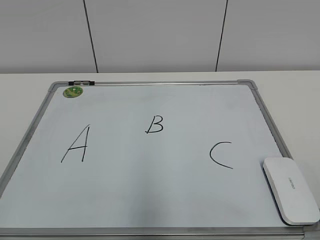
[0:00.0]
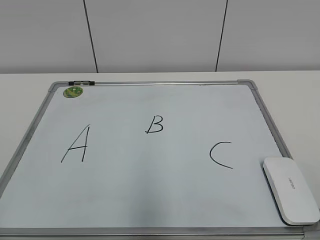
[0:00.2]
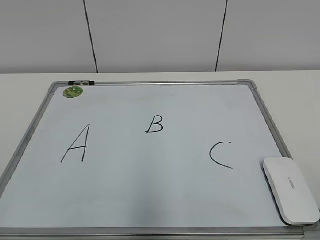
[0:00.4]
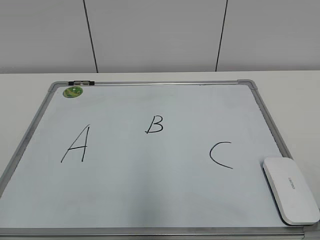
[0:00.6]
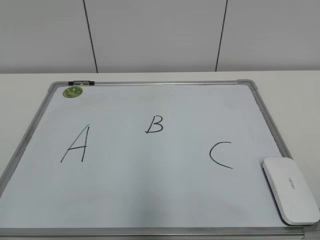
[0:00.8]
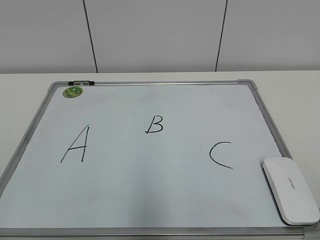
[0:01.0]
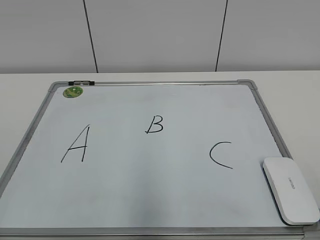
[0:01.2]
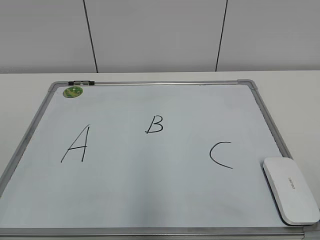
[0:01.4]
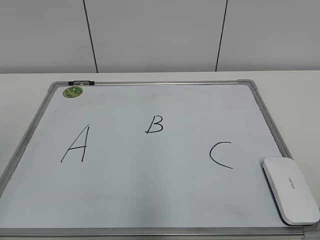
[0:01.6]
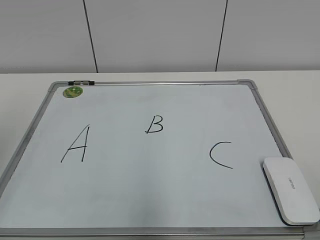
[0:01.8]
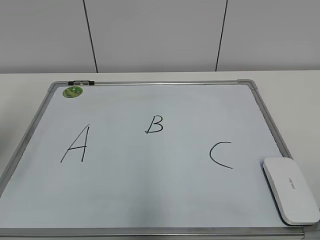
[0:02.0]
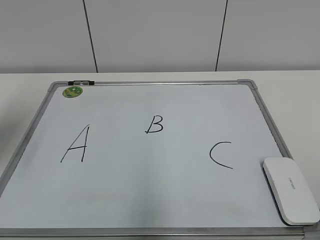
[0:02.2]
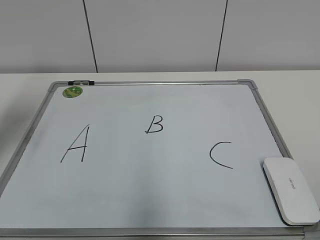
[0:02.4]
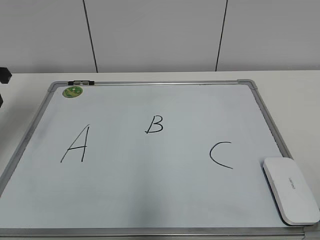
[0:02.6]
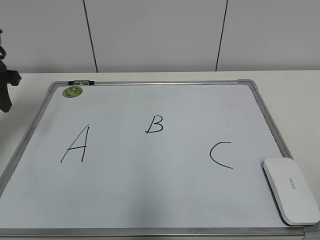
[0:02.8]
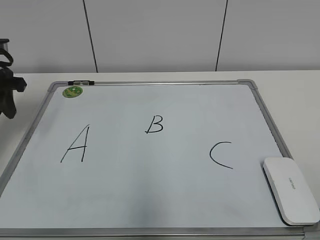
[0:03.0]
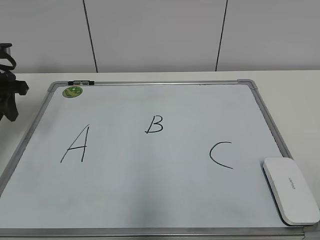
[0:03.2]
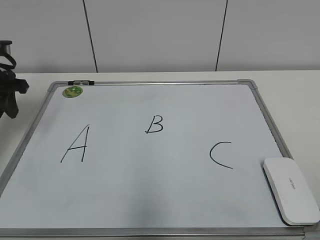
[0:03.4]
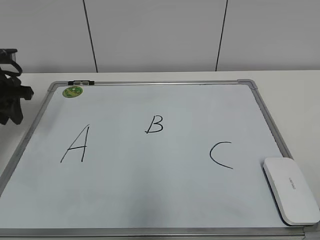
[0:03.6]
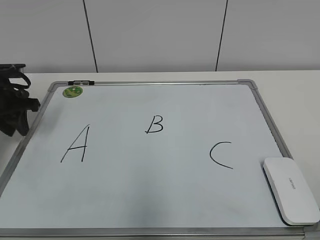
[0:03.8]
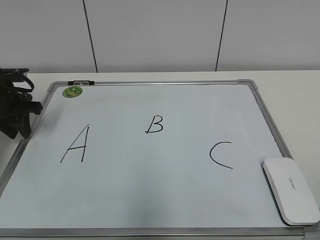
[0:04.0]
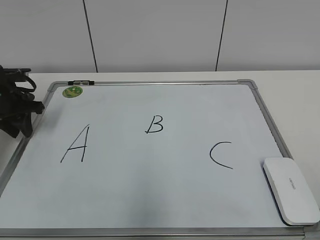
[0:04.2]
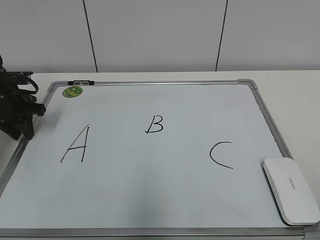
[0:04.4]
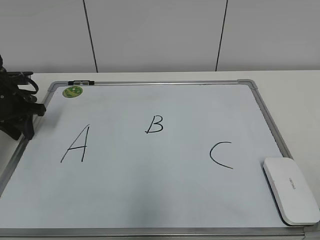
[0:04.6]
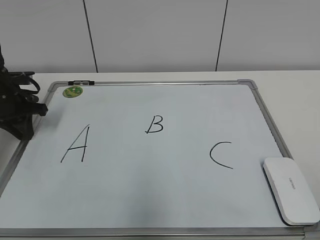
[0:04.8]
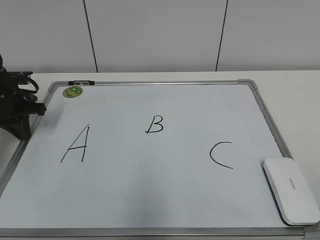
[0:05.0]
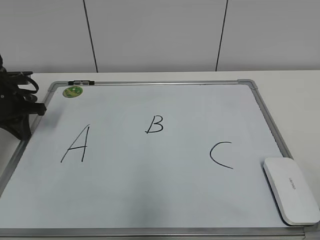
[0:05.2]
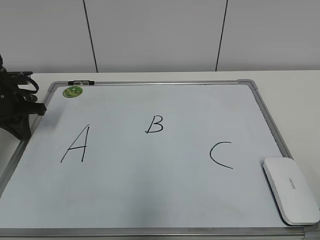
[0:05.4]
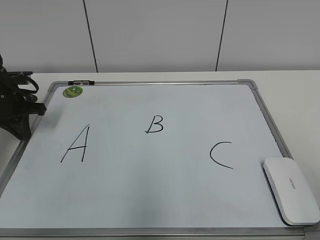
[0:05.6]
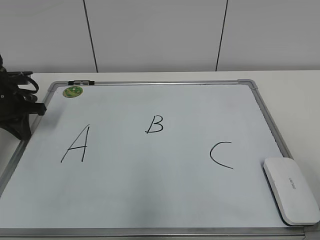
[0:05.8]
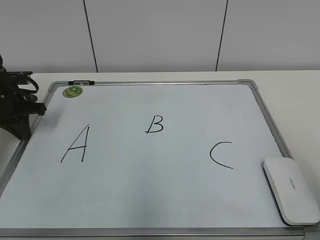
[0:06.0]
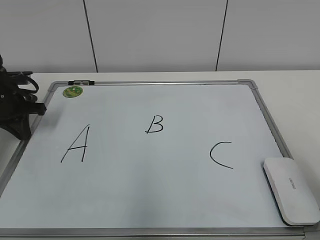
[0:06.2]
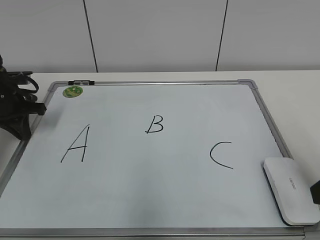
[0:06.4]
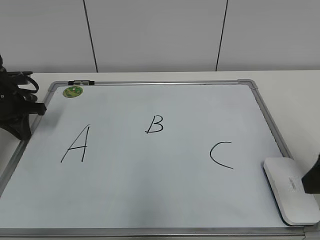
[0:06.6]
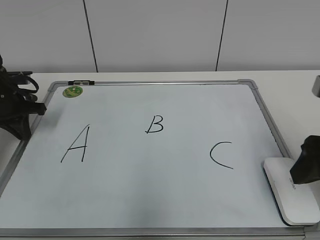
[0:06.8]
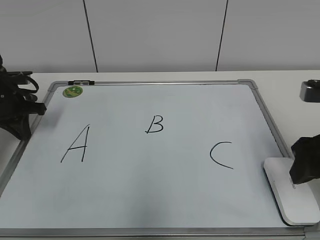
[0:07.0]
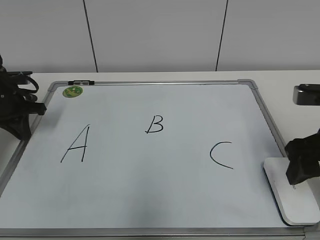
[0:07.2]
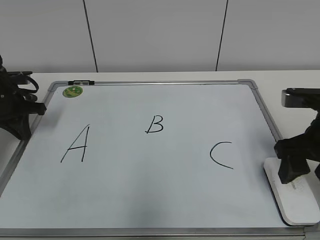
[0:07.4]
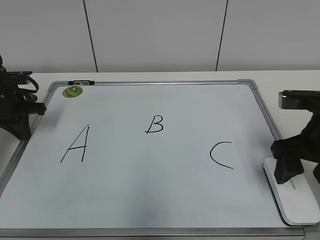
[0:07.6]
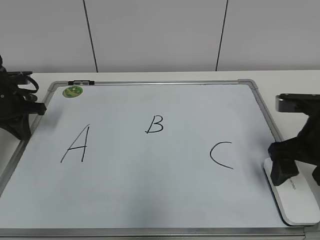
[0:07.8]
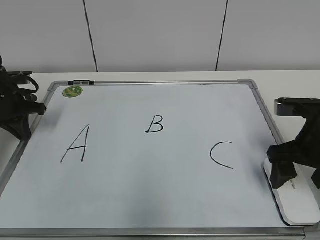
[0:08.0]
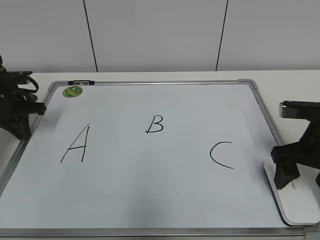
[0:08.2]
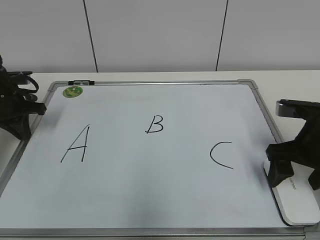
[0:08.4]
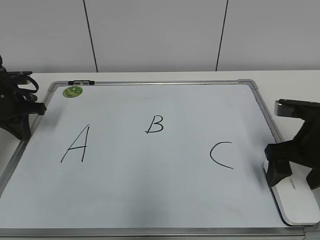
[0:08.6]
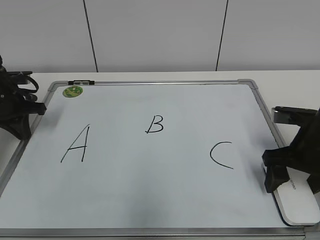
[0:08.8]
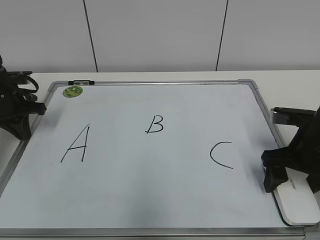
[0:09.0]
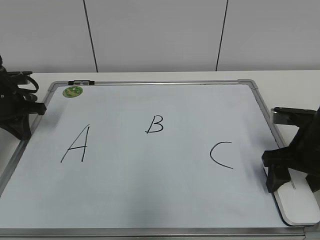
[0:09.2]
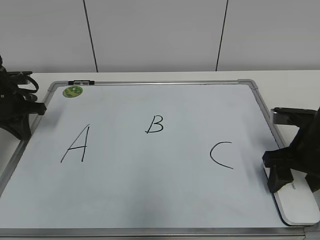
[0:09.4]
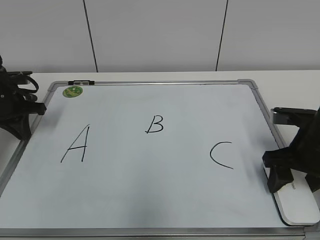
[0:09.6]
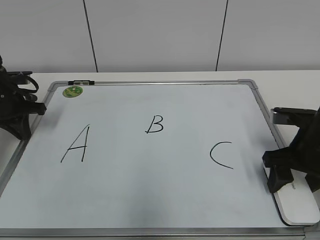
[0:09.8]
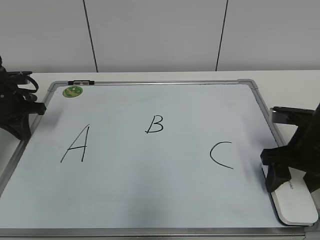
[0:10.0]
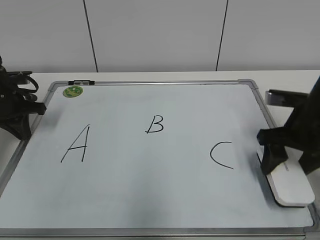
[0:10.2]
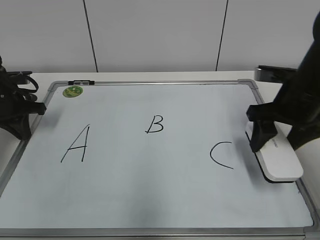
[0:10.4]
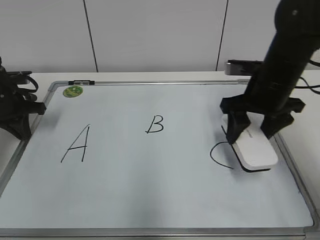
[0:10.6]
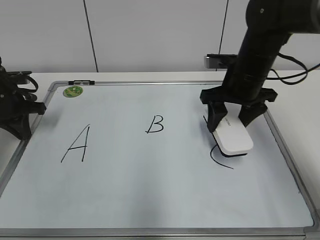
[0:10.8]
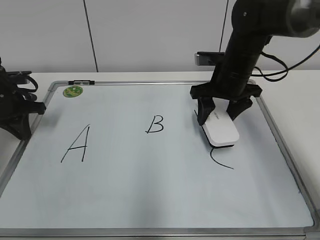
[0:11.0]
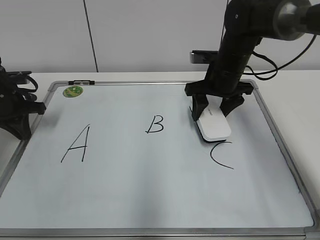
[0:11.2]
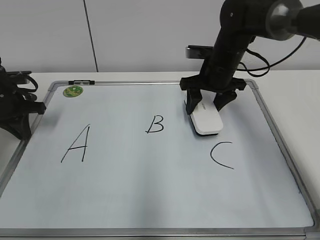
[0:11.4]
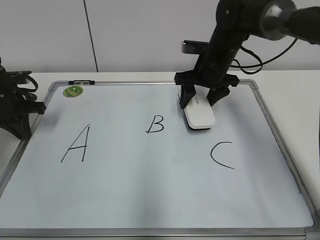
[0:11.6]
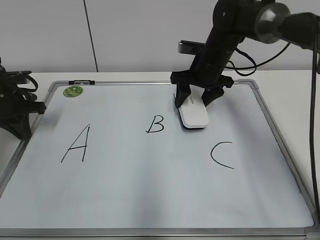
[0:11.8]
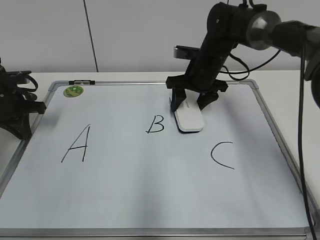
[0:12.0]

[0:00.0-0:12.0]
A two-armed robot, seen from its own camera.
Task of the whole recording: pick up the eraser on the blackboard and erase the letter "B".
Step, 0:00.0 to 0:04.8: Hold the drawing board steady with your left hand.
Step, 0:05.2 to 0:09.8: Grab the eraser with your right hand.
0:01.6 to 0:03.0: The left gripper travels forward by roughly 30 cm.
0:03.0 to 0:04.4: The left gripper heads downward, covering roughly 10 cm.
0:04.4 to 0:06.0: The right gripper heads forward, covering roughly 10 cm.
0:06.0 to 0:07.6: The right gripper is displaced forward and downward by some 20 cm.
0:07.6 to 0:09.0: The right gripper shifts by approximately 5 cm, and opens.
0:09.0 to 0:10.4: The right gripper moves upward, approximately 5 cm, and closes its fingers.
0:10.4 to 0:12.0: The right gripper heads forward and to the left, covering some 20 cm.

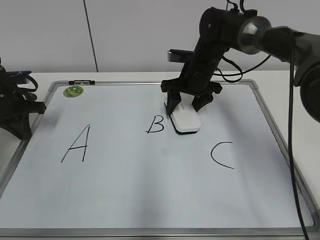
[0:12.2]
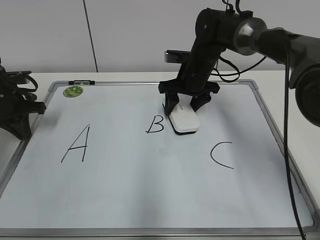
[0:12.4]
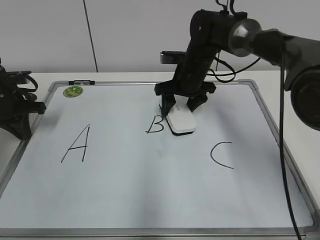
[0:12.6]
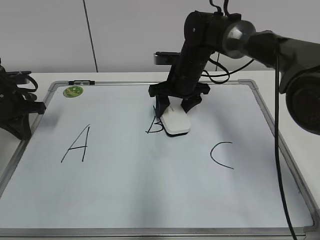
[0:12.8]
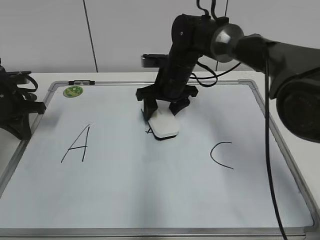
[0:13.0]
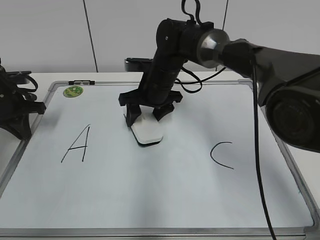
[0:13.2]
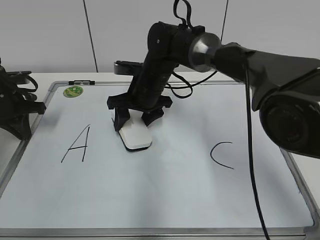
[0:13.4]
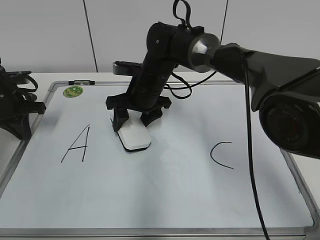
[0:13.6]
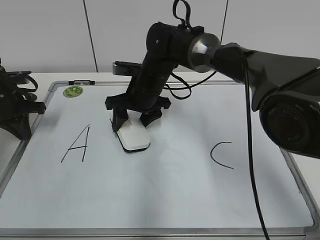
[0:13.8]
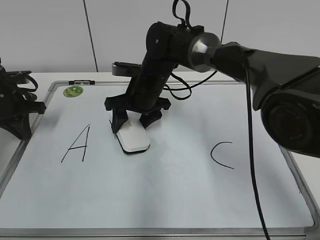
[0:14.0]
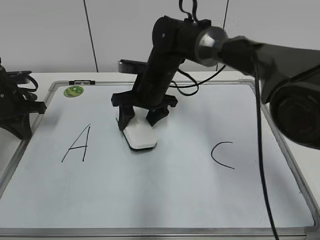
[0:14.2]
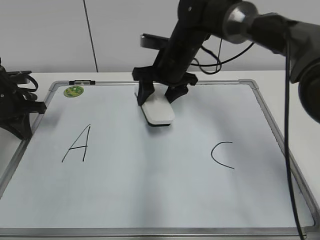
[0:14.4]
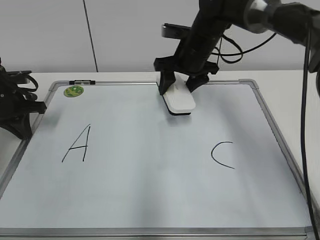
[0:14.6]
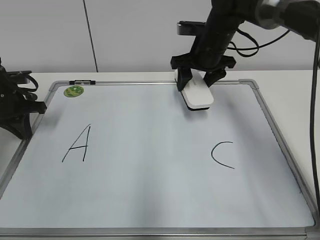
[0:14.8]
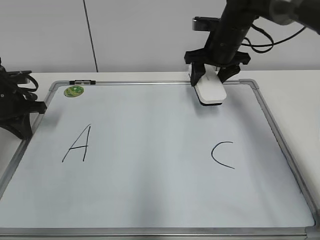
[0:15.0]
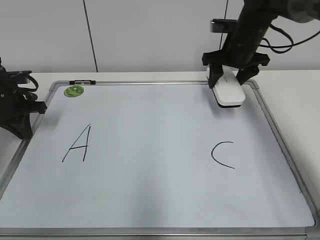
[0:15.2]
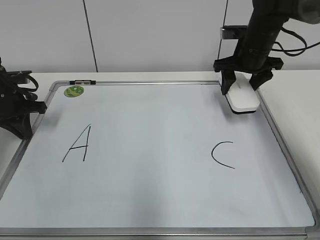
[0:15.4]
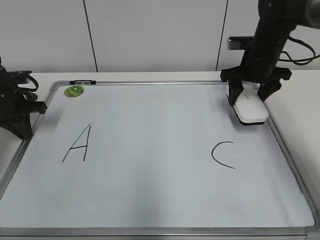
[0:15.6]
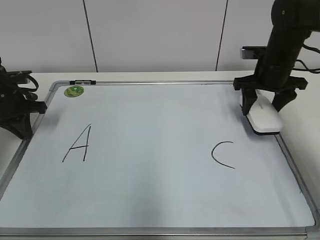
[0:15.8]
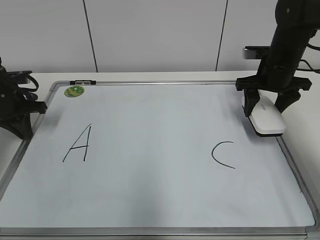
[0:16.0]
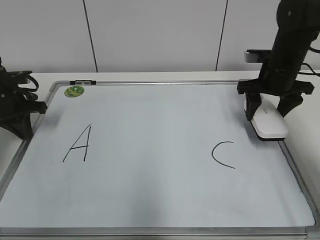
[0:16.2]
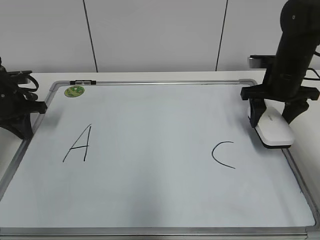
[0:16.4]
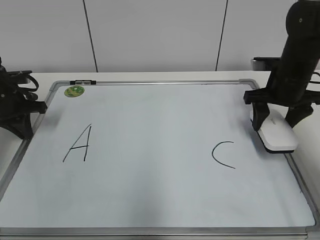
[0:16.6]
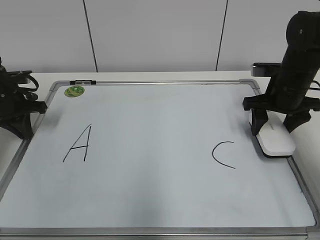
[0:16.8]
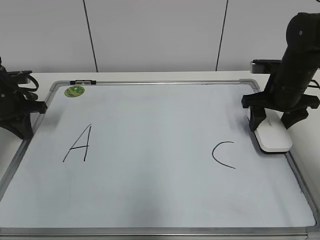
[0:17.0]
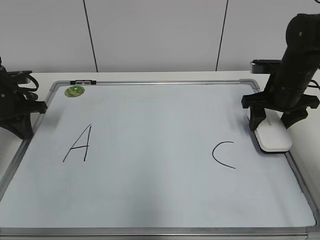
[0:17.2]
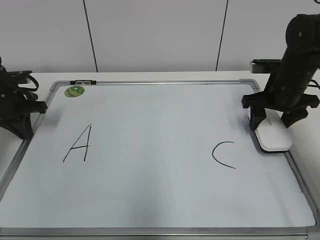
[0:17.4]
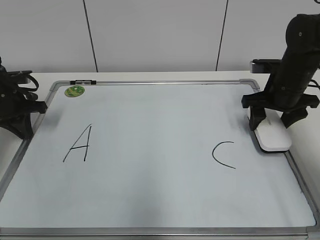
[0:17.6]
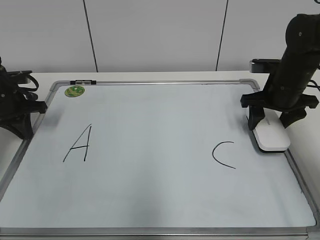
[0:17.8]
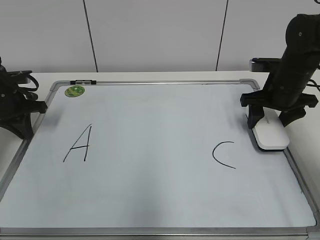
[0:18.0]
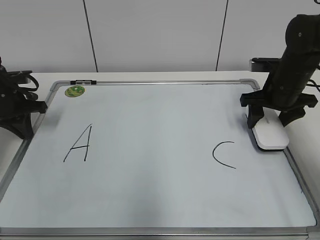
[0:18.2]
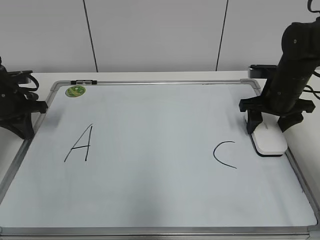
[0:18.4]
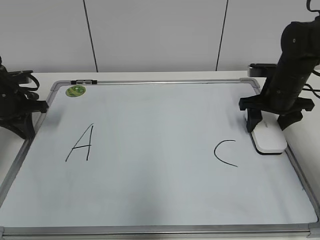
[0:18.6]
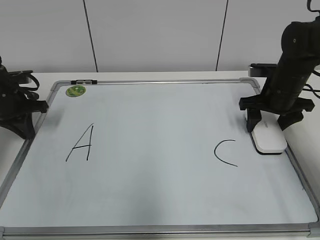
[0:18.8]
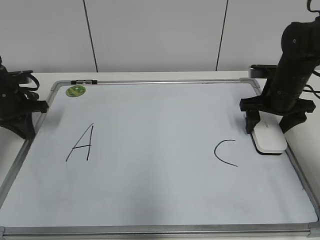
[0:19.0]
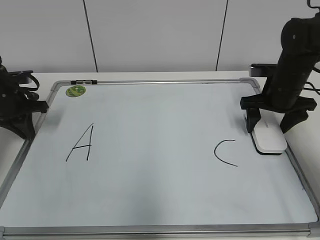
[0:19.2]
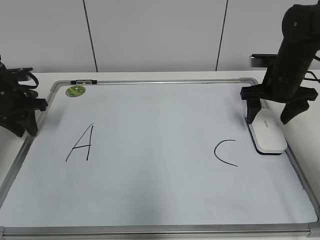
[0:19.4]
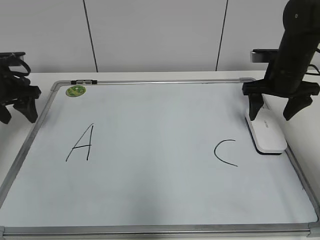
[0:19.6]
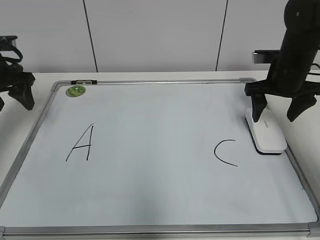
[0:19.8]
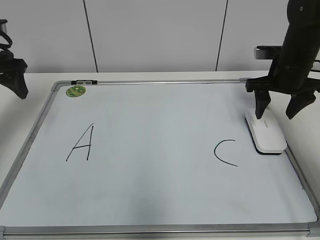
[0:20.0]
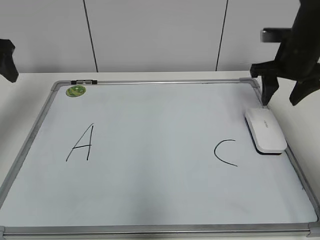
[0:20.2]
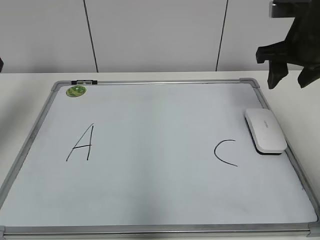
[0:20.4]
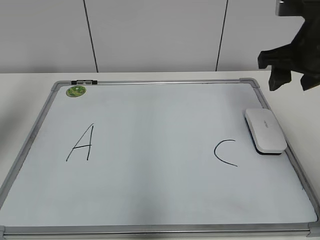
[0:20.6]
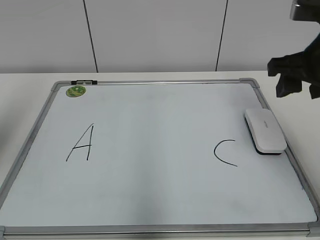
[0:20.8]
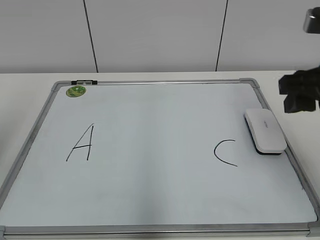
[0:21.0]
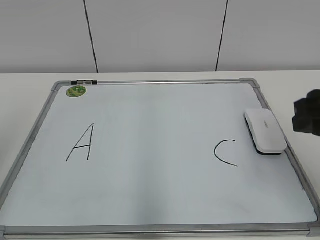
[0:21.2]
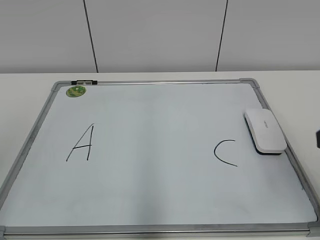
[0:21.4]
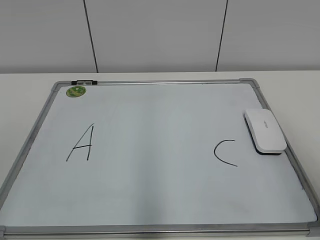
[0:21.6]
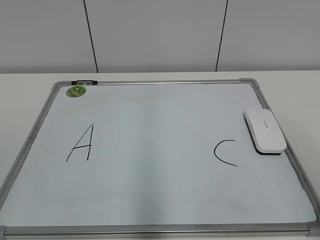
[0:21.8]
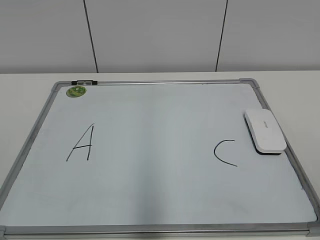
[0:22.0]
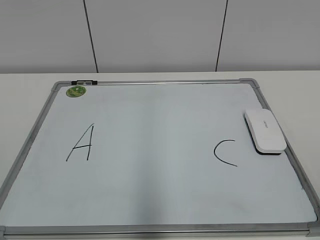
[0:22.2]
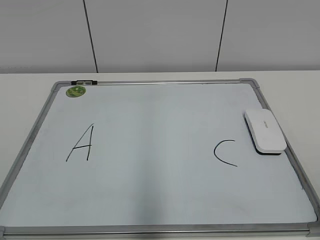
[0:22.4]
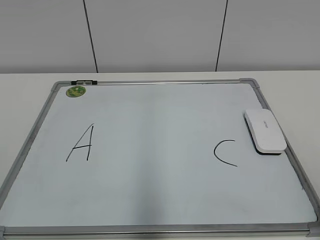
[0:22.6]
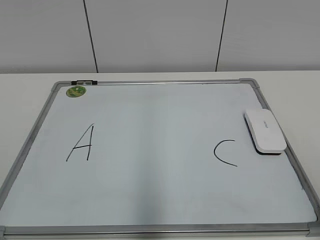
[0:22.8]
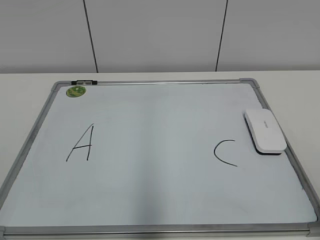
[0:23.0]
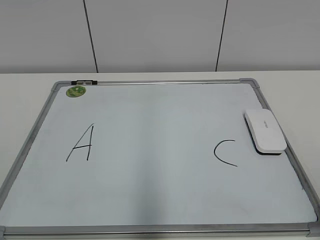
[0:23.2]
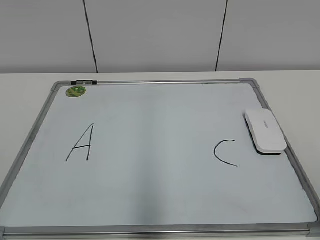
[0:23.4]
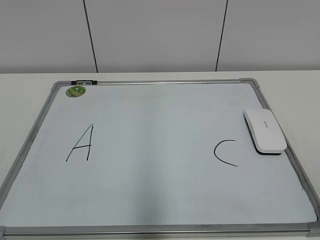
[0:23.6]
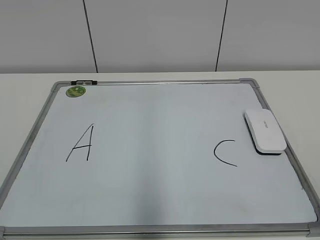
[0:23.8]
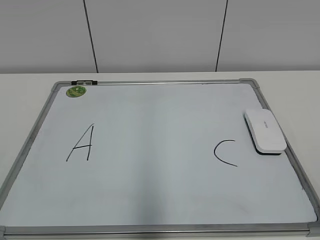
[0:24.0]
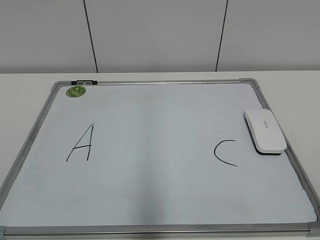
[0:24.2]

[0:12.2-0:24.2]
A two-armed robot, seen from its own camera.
Task of the whole recording: pick up the eraser on the blackboard and erase the letter "B".
Step, 0:14.2 to 0:18.8: Put down the eraser with your right hand.
0:12.2 to 0:13.8: The right gripper moves to the left, about 10 cm.
0:13.8 to 0:15.2: The right gripper heads to the right and upward, covering some 20 cm.
0:15.2 to 0:16.6: The right gripper goes roughly 10 cm backward and to the right.
0:16.6 to 0:18.2: The grippers move only a little.
0:18.2 to 0:19.8: The left gripper goes roughly 5 cm upward, and opens. The right gripper opens its fingers.
0:19.8 to 0:21.2: The right gripper goes roughly 25 cm backward and upward, and closes its fingers; the left gripper travels backward by some 30 cm.
0:21.2 to 0:22.6: The right gripper moves backward, about 20 cm.
